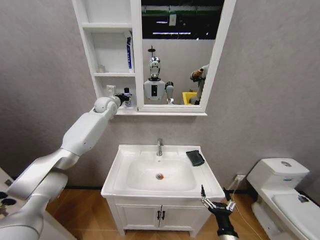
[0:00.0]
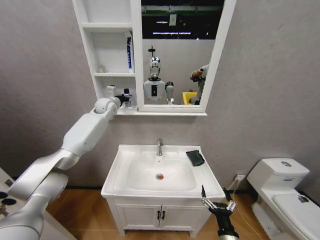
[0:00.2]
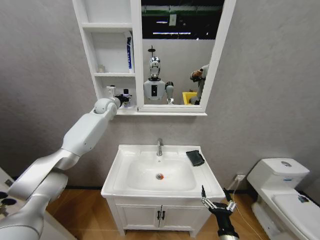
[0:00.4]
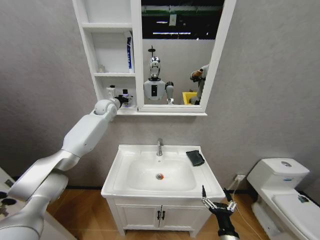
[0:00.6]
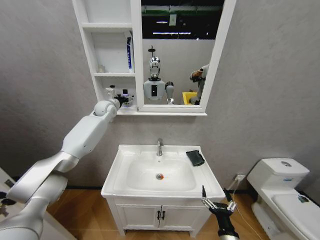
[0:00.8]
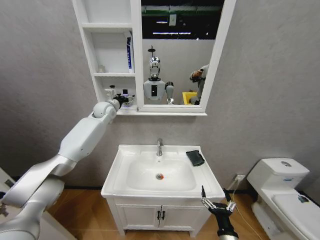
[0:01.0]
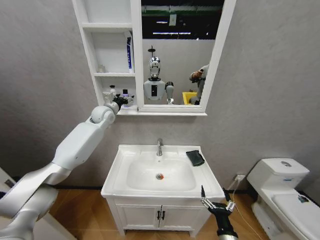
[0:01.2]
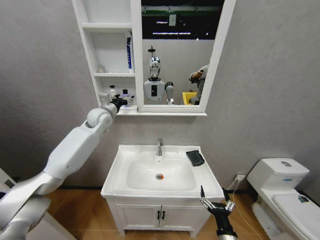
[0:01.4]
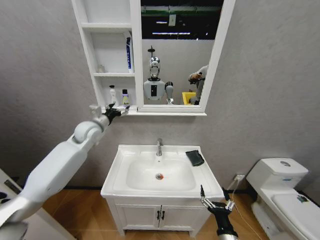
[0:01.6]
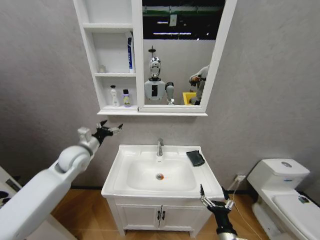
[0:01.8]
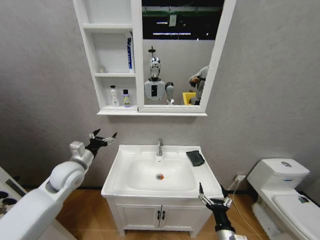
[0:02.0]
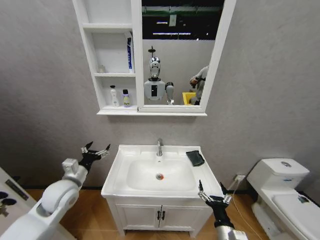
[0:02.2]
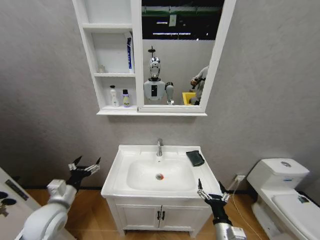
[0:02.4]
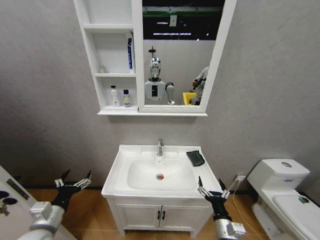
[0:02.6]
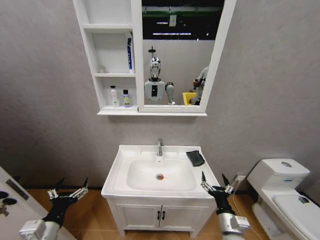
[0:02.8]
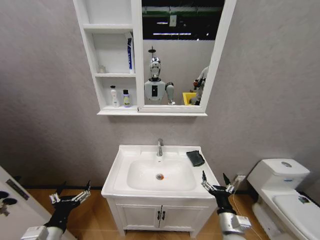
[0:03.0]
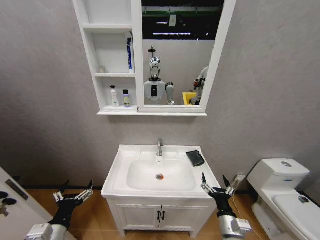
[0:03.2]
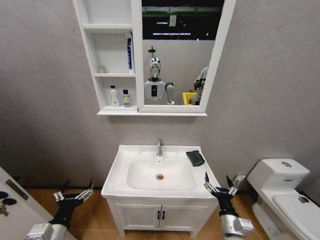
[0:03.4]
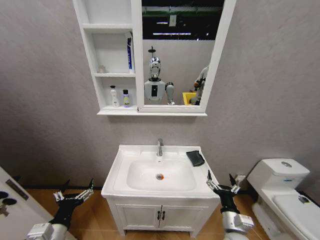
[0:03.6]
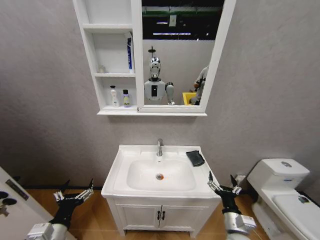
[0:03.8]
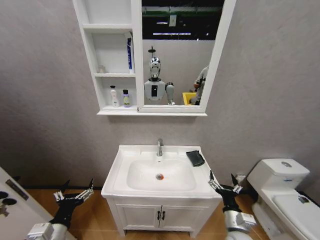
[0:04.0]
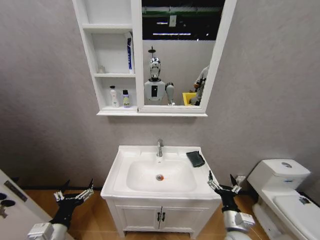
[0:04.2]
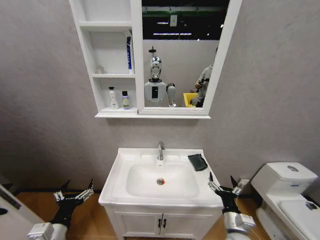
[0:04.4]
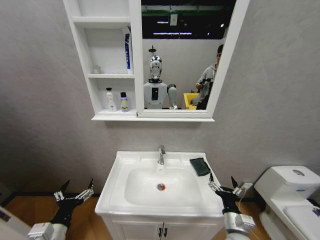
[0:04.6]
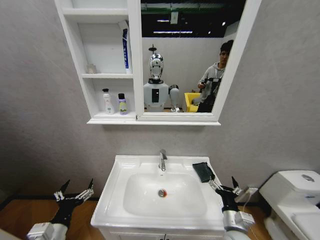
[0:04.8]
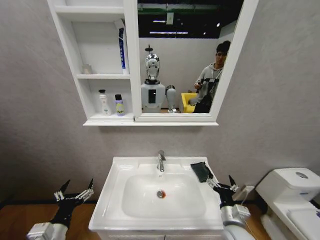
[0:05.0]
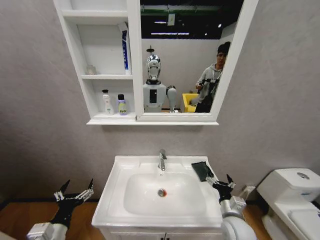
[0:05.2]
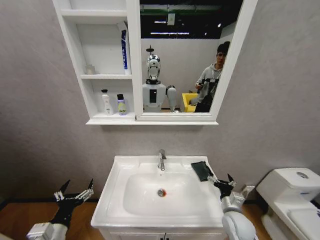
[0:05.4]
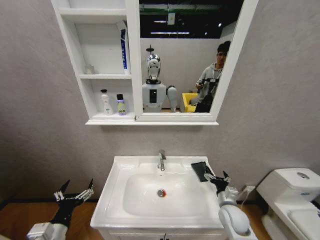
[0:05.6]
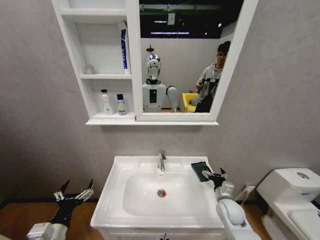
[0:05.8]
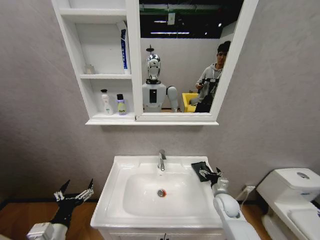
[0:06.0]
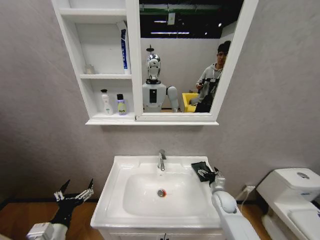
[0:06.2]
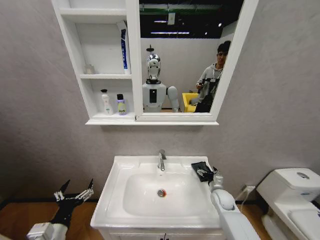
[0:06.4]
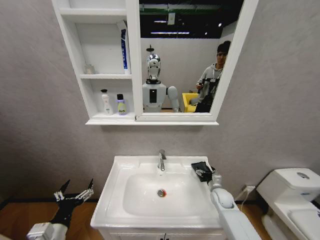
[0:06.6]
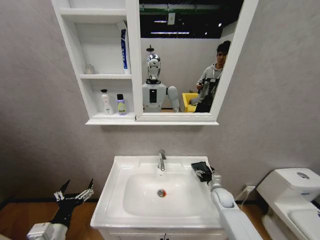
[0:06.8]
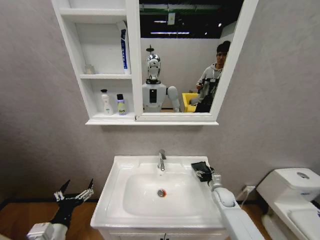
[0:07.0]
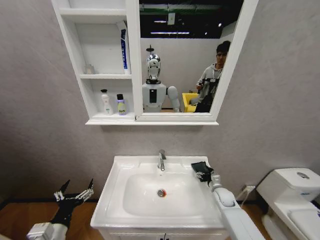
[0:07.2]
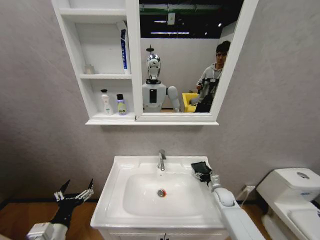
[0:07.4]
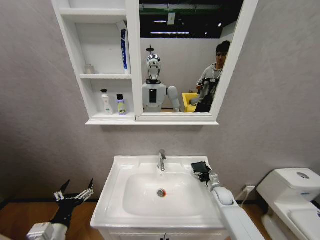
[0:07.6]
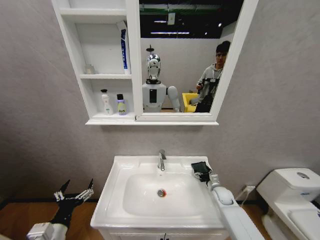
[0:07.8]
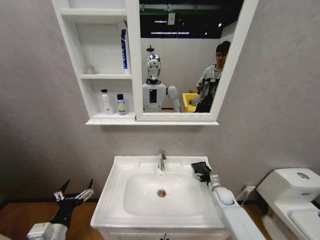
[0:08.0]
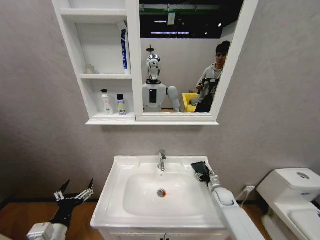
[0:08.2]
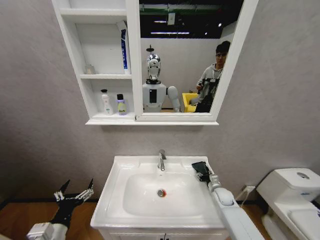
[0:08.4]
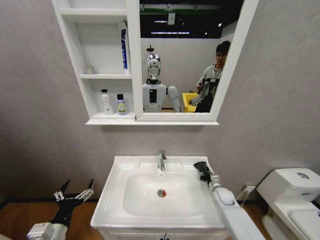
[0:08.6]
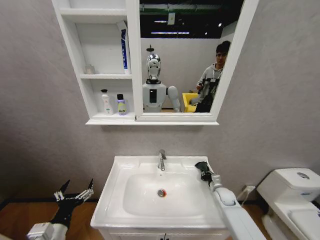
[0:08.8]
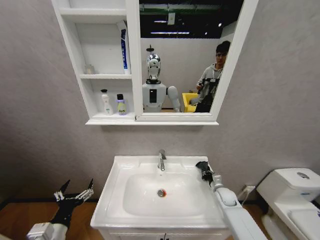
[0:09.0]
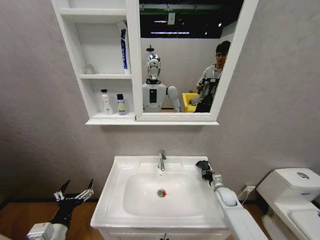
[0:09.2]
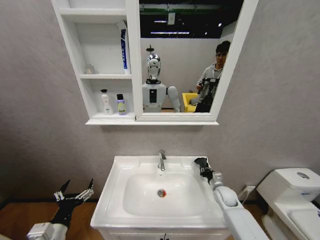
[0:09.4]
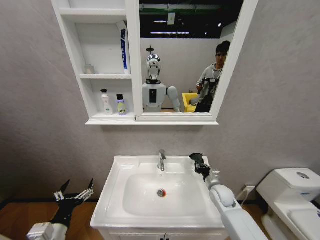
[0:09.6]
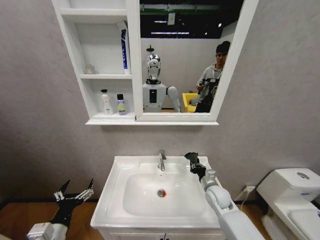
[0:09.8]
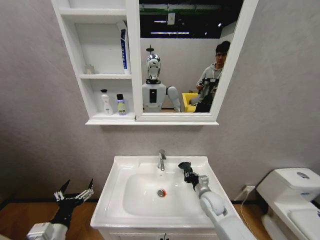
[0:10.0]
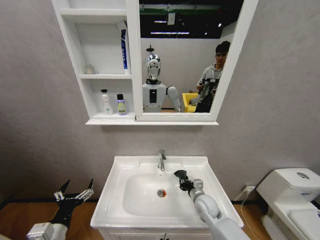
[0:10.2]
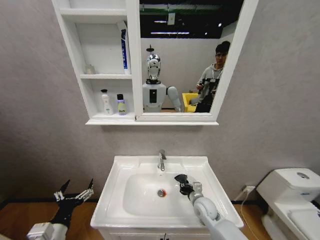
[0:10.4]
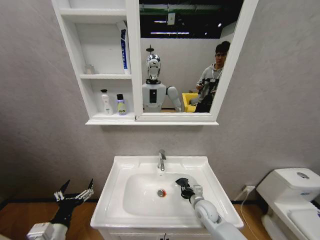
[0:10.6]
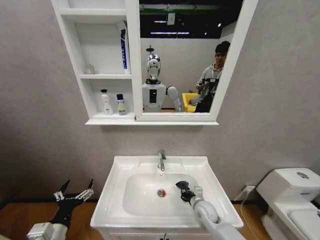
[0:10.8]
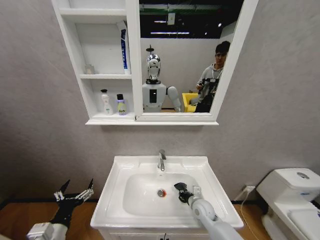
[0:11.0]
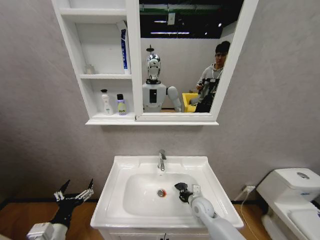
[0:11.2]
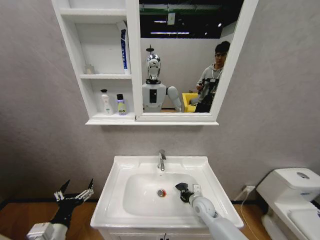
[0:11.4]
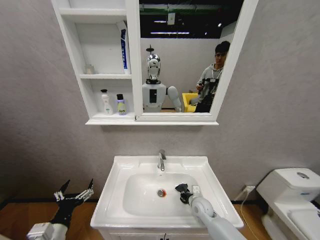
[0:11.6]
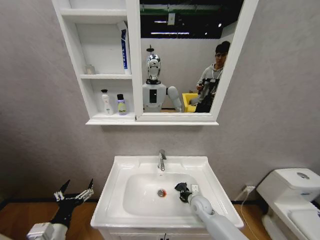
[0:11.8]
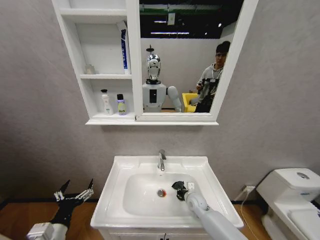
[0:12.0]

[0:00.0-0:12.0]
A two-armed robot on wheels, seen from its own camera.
Task of the whole recording: Move facial cleanser and shampoo from washbasin to cabinet, then wipe washbasin with towel.
0:00.0 to 0:01.6: The left gripper travels backward and downward by some 15 cm, and opens up.
0:01.6 to 0:03.0: The left gripper goes approximately 40 cm backward and downward. The right gripper moves forward, roughly 5 cm.
0:03.0 to 0:04.4: The grippers make only small movements.
0:04.4 to 0:06.0: The right gripper moves forward, about 15 cm.
0:06.0 to 0:07.6: The right gripper shifts roughly 5 cm forward.
0:07.6 to 0:09.0: The right gripper closes up.
0:09.0 to 0:10.4: The right gripper is displaced to the left and backward by roughly 15 cm.
0:10.4 to 0:12.0: The right gripper changes place by roughly 5 cm.

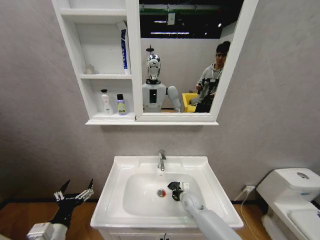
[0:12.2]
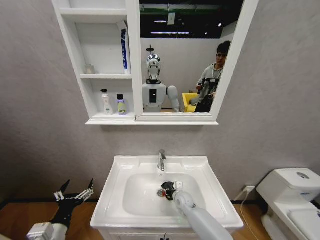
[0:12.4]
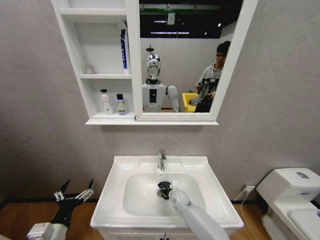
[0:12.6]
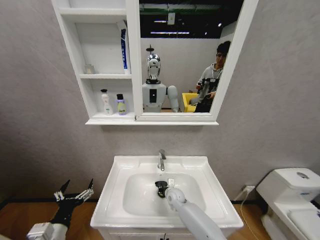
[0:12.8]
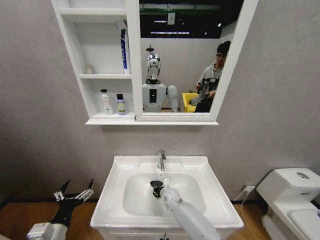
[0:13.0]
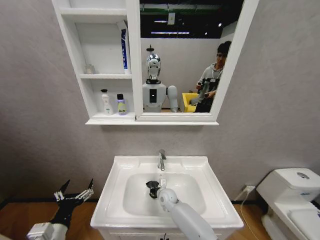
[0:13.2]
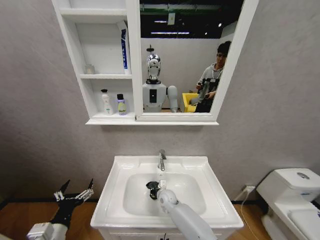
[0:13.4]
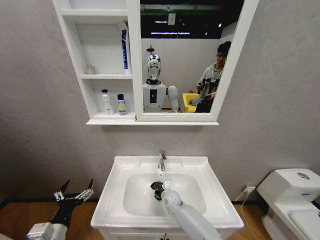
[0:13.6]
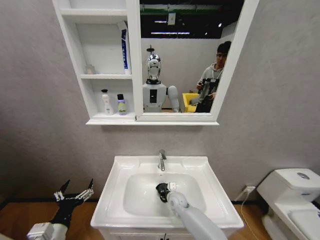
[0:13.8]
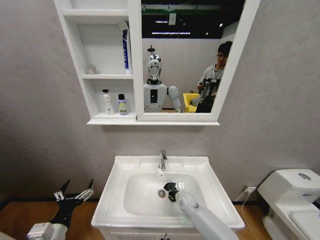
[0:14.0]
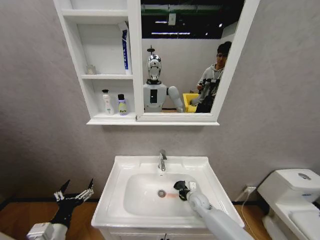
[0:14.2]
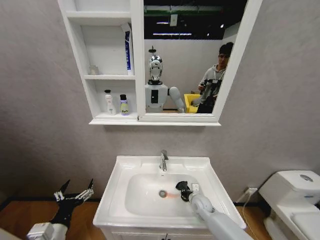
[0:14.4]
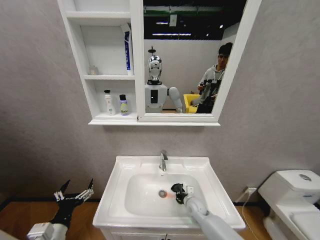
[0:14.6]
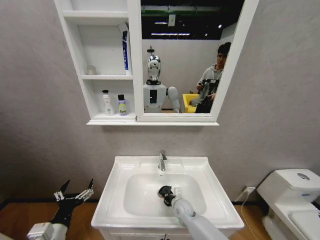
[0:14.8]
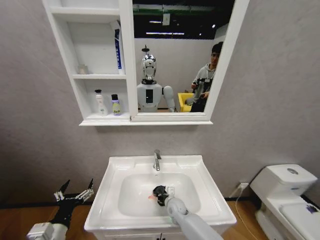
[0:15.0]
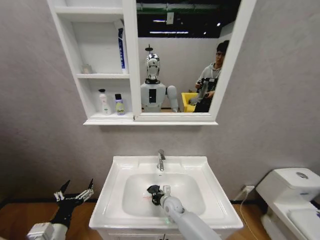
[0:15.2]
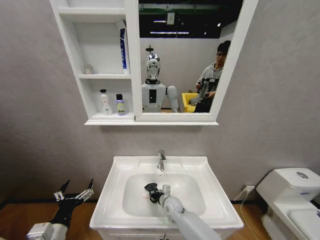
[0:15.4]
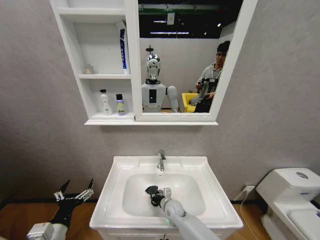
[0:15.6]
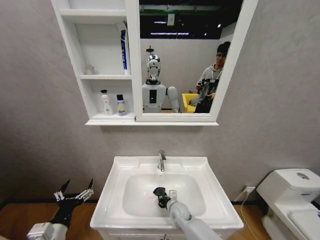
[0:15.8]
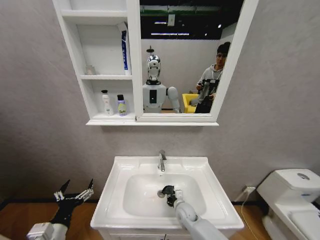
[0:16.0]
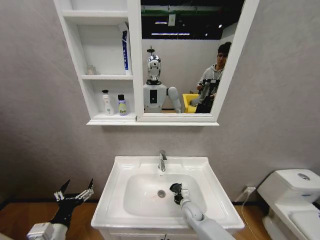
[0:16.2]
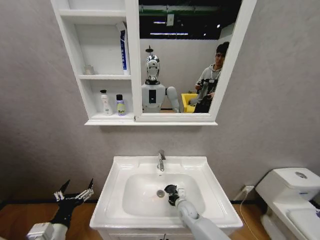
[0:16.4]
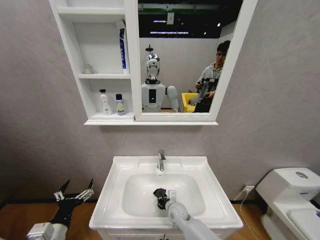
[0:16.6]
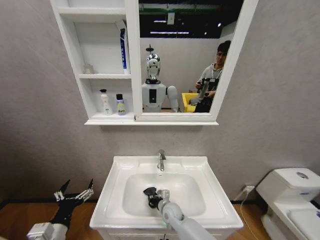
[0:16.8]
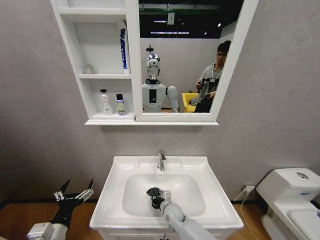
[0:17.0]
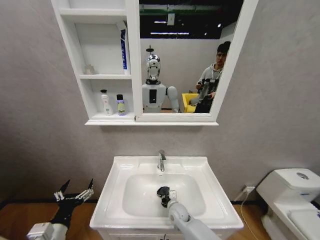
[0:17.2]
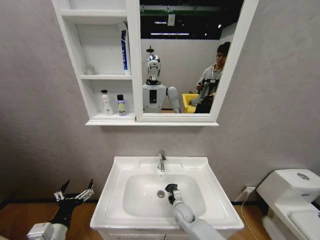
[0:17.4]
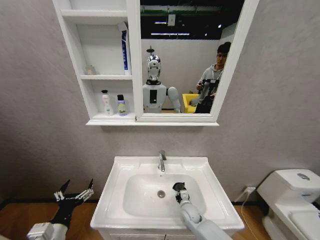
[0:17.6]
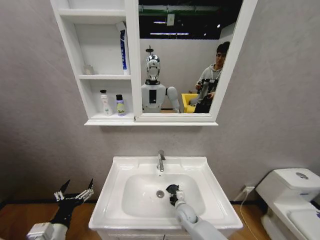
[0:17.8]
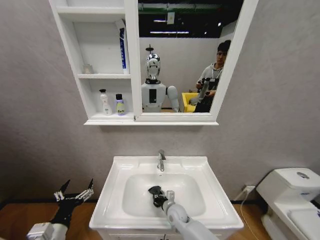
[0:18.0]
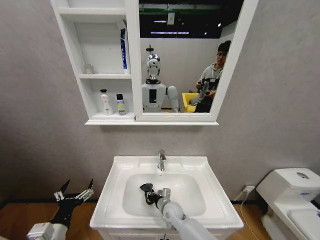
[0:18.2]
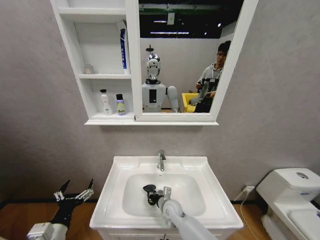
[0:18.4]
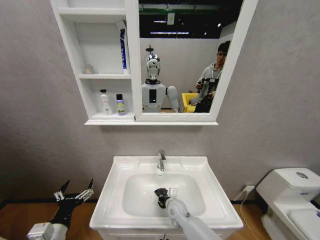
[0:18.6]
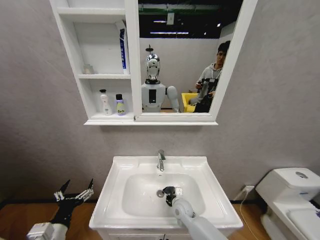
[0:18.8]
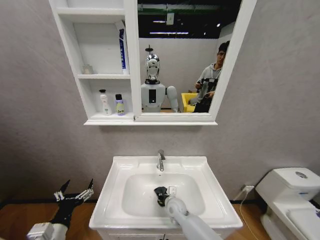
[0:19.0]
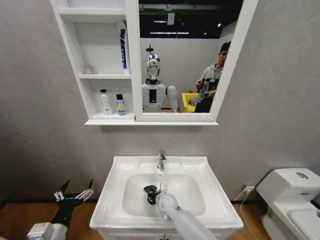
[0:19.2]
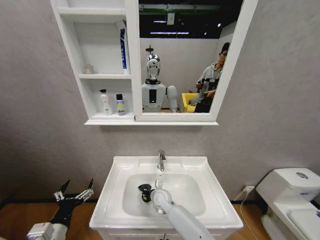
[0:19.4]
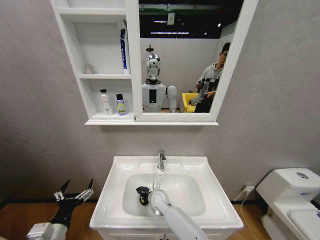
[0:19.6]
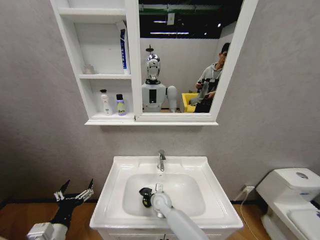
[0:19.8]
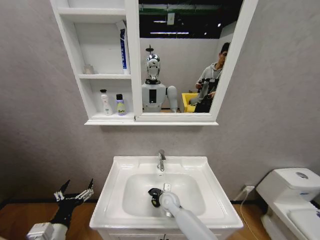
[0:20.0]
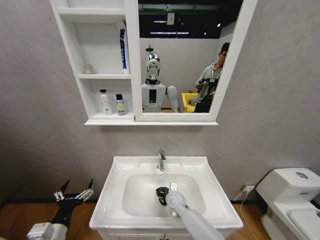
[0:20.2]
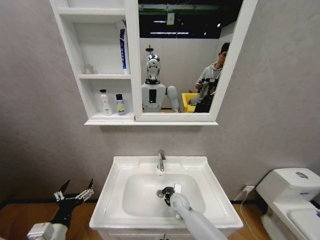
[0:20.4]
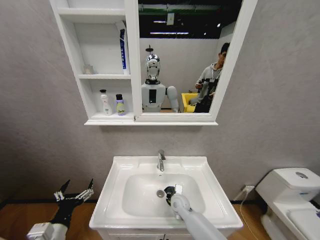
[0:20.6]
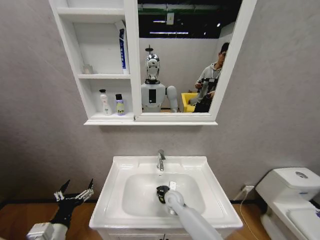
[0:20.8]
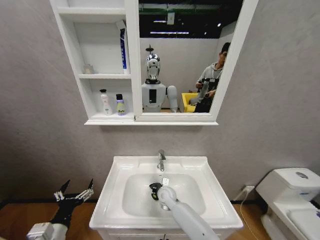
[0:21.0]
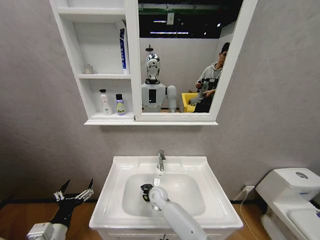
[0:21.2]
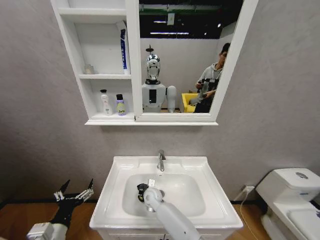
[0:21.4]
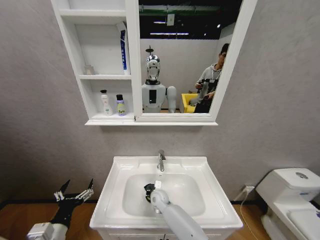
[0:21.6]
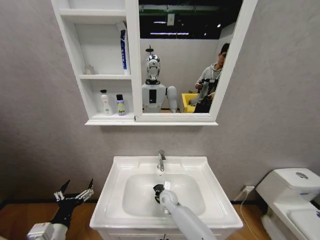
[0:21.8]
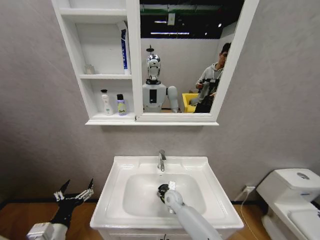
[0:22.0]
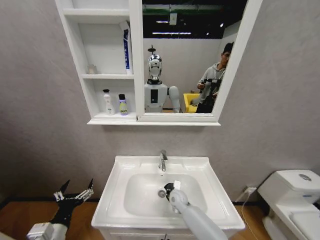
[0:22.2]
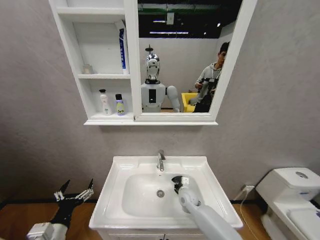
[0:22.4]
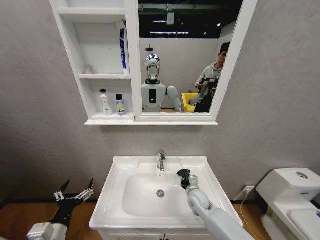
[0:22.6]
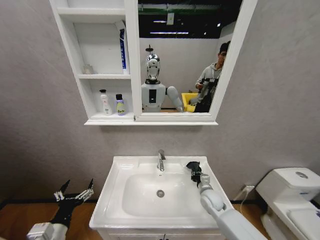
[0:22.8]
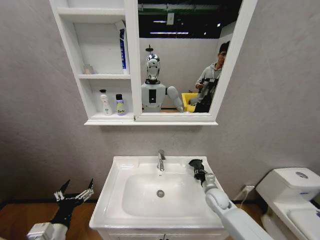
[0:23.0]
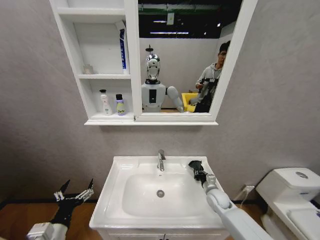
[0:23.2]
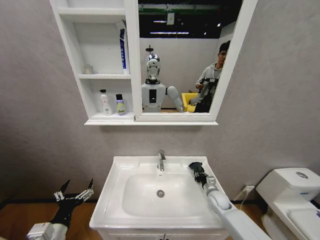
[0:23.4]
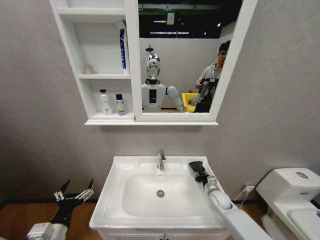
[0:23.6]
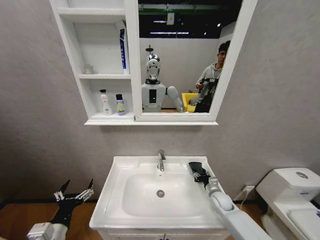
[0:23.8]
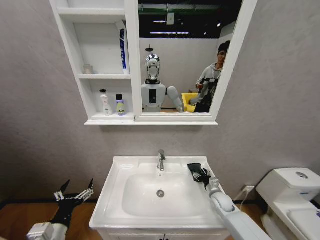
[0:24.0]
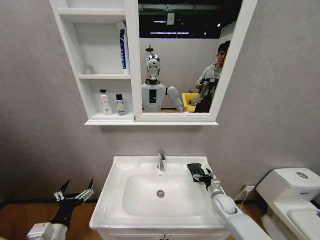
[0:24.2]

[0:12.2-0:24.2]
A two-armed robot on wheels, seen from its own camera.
Task of the whole recording: Move facial cleanser and shampoo from washbasin to cabinet, then wipe washbasin with towel.
0:12.2 to 0:13.8: The right gripper goes roughly 5 cm to the left.
0:13.8 to 0:15.2: The right gripper travels to the right and back again, about 10 cm each way.
0:15.2 to 0:16.6: The right gripper goes to the right and returns, roughly 10 cm each way.
0:16.6 to 0:18.2: The right gripper reaches roughly 5 cm to the right, then returns.
0:18.2 to 0:19.8: The right gripper shifts by roughly 5 cm.
0:19.8 to 0:21.2: The right gripper travels to the right and back again, roughly 10 cm each way.
0:21.2 to 0:22.6: The right gripper shifts about 20 cm to the right.
0:22.6 to 0:24.2: The right gripper goes some 15 cm to the right, and opens its fingers.
